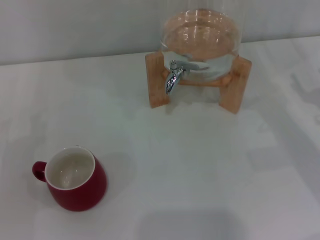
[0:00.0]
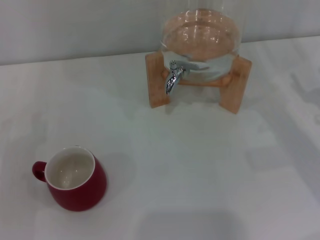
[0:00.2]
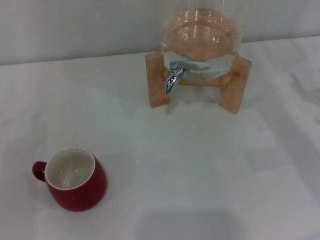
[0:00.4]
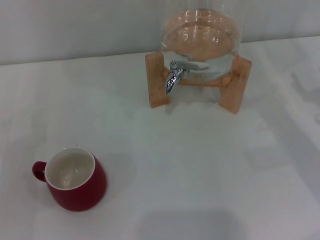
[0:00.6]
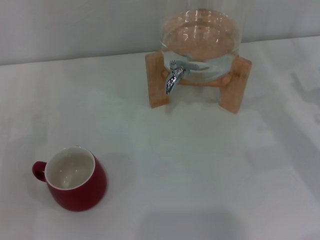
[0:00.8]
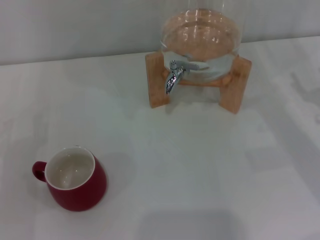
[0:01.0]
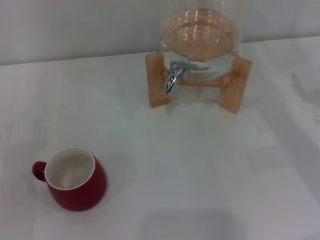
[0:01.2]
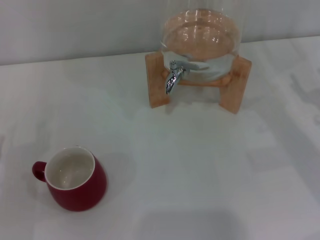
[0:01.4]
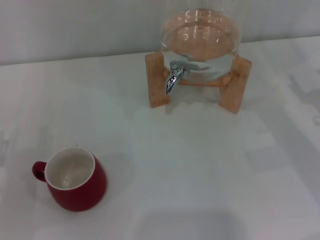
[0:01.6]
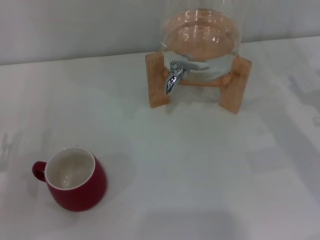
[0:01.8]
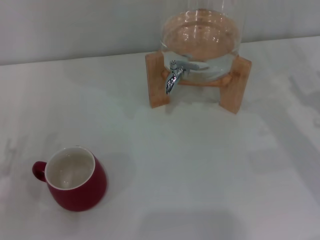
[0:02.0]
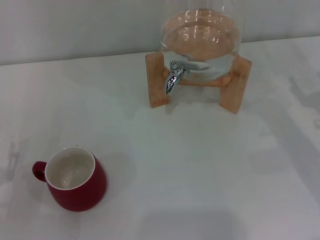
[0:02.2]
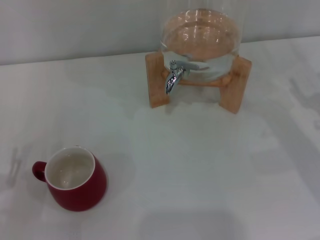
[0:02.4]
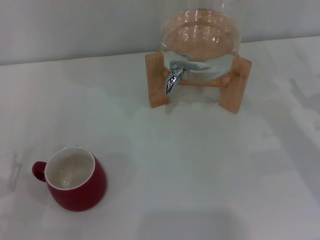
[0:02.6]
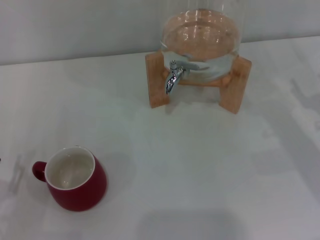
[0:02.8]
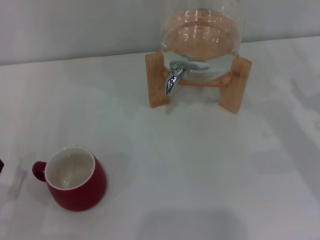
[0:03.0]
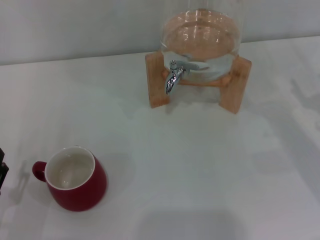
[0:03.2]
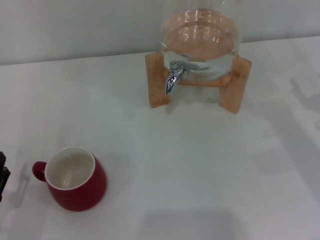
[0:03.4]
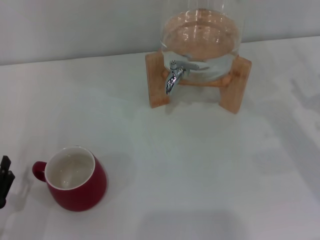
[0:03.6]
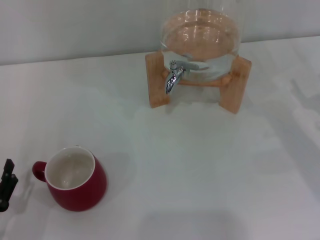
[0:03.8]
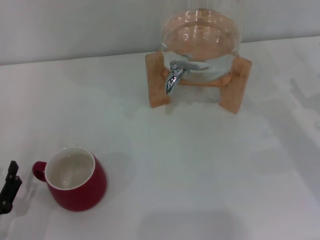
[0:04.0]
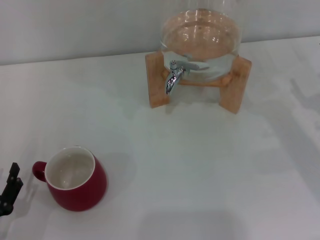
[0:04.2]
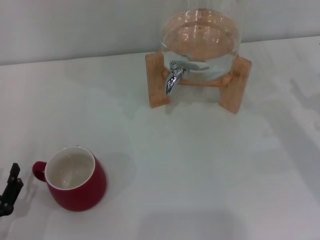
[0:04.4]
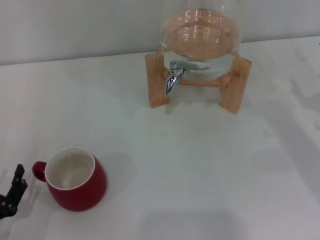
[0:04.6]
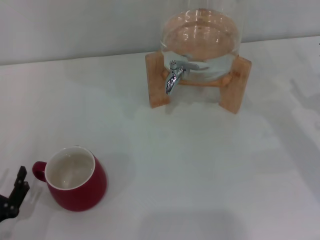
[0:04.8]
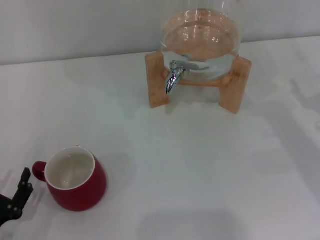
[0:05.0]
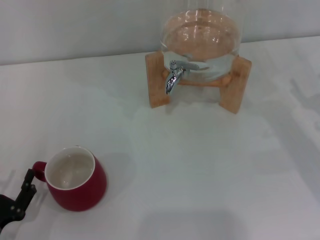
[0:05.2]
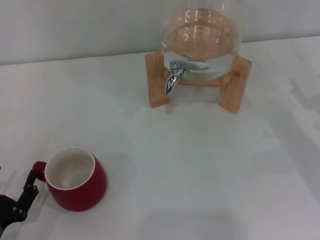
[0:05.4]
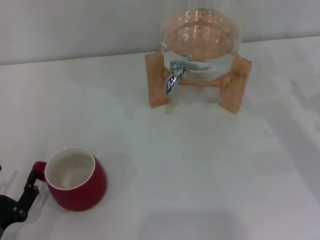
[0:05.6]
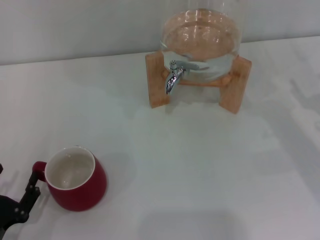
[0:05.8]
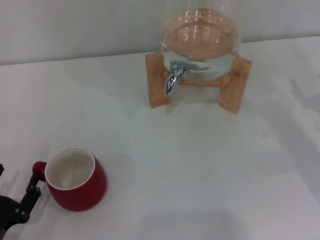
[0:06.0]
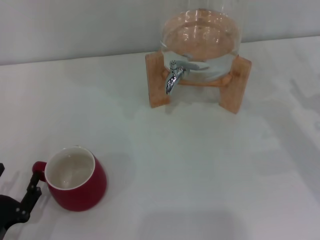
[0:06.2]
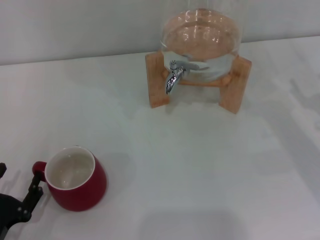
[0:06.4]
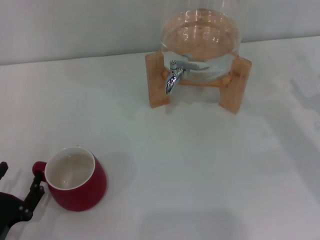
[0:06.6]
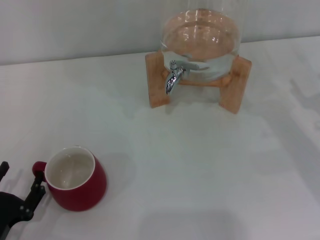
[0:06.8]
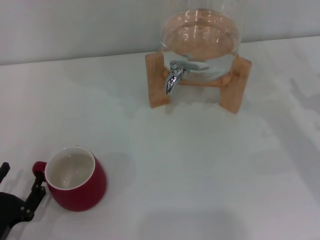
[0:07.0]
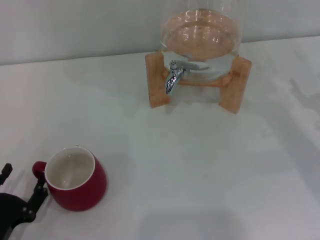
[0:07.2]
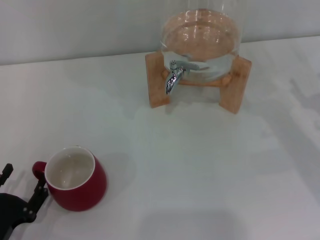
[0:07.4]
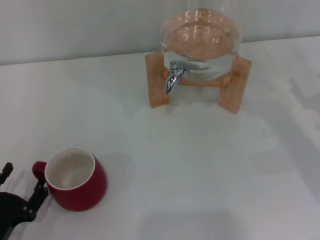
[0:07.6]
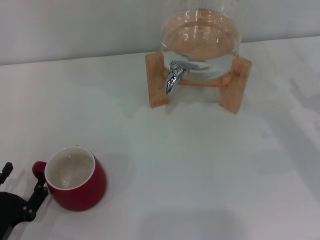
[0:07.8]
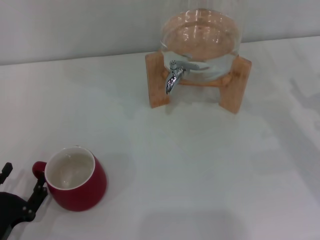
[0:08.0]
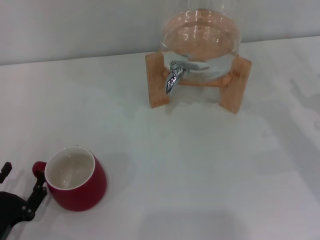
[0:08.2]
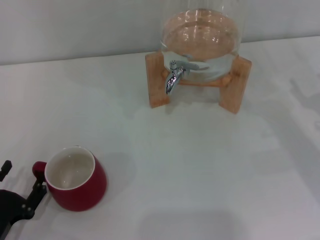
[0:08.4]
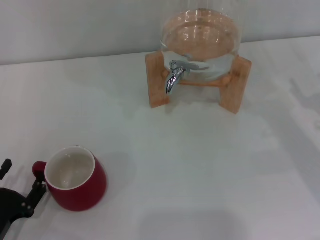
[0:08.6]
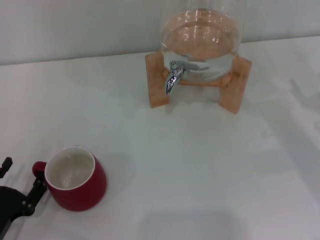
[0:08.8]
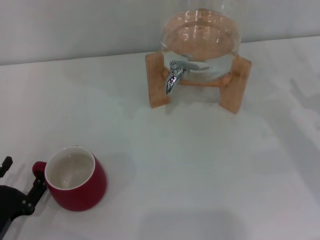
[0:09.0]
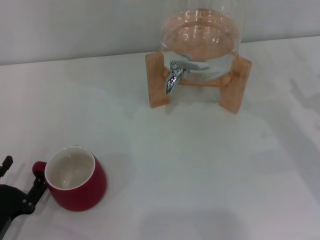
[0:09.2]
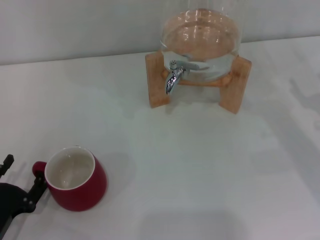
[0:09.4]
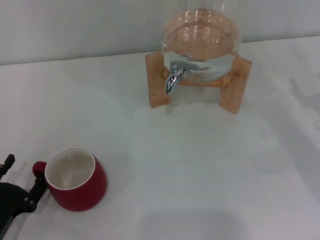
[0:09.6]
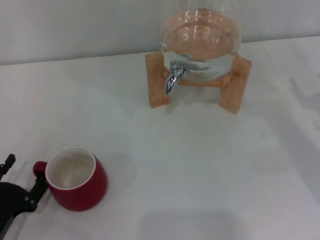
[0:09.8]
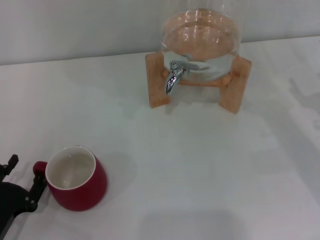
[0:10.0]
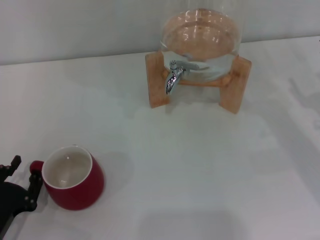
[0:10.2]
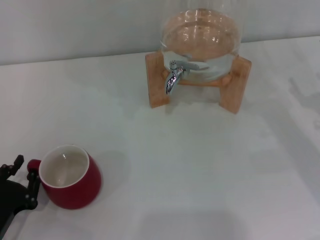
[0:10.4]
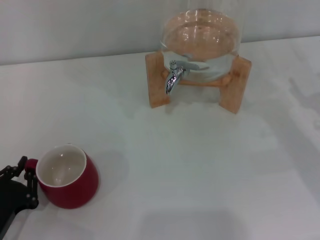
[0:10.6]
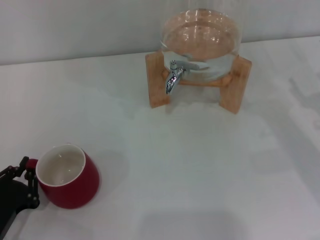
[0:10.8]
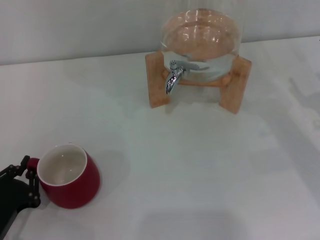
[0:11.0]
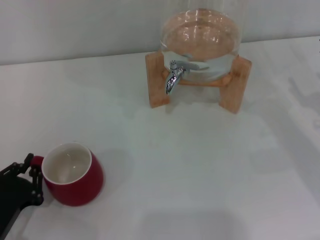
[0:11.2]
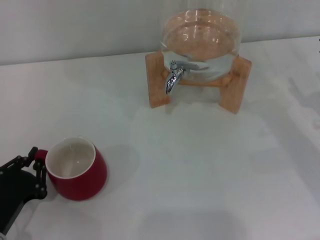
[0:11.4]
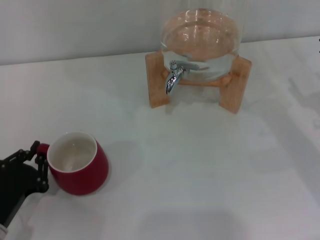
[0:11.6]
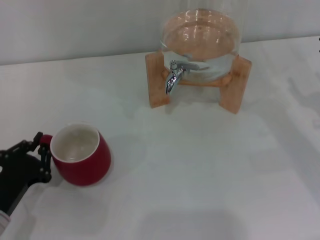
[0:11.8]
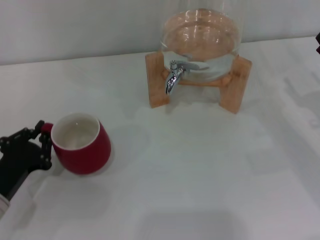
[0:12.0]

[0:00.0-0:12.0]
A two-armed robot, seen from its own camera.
Task of the whole recording: the left gripper pick up the red cup and place it horizontally under the faucet, the right gripper turn on the faucet to fill the cup, and then turn off the faucet.
0:03.0 to 0:06.0: There are only small adjustments of the grippers.
0:06.0 to 0:07.6: Both grippers stay put.
0:07.6 to 0:09.0: Both grippers stay about where they are.
0:09.0 to 0:10.4: The left gripper closes its fingers.
0:10.4 to 0:12.0: The left gripper heads forward, covering roughly 5 cm, and closes up.

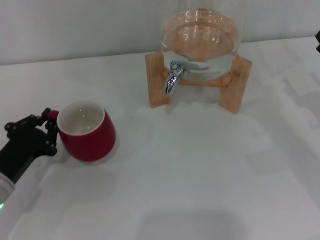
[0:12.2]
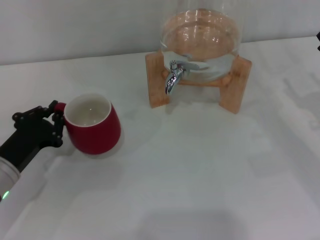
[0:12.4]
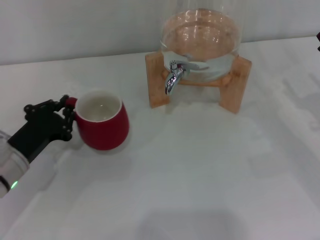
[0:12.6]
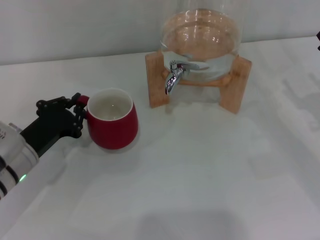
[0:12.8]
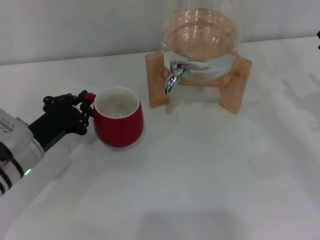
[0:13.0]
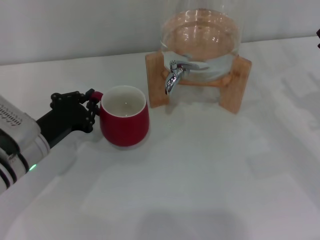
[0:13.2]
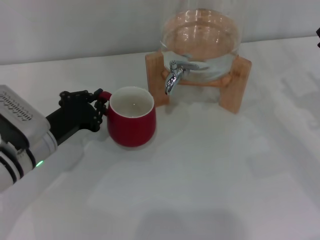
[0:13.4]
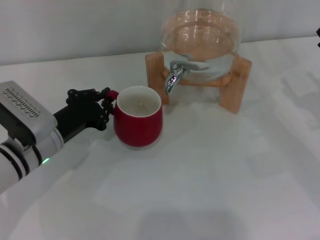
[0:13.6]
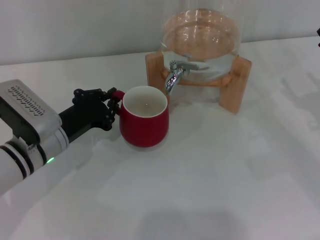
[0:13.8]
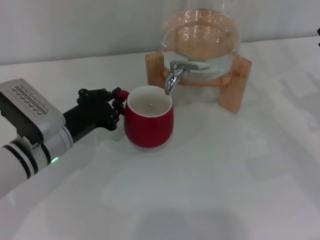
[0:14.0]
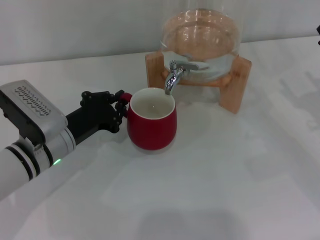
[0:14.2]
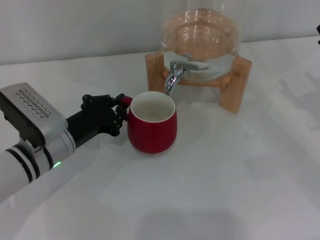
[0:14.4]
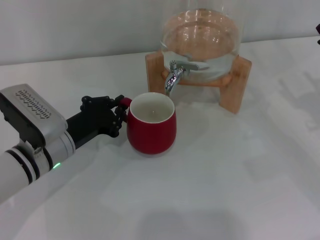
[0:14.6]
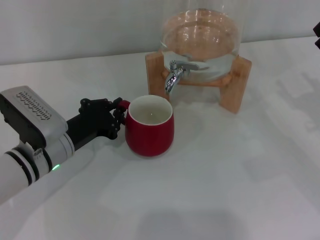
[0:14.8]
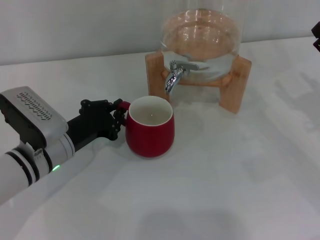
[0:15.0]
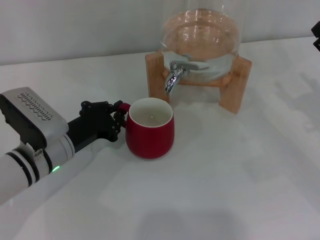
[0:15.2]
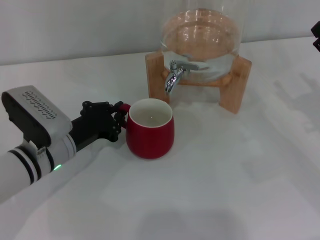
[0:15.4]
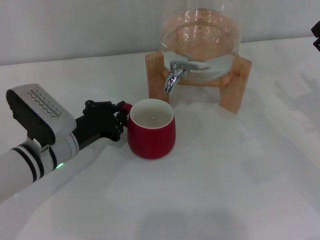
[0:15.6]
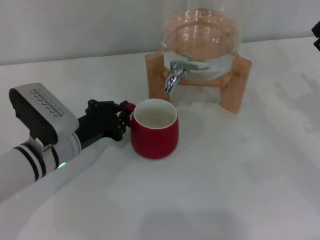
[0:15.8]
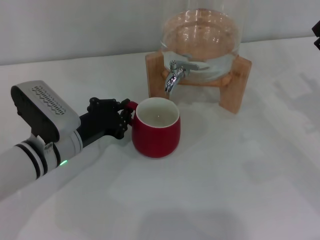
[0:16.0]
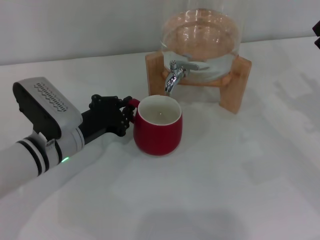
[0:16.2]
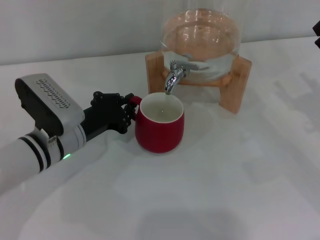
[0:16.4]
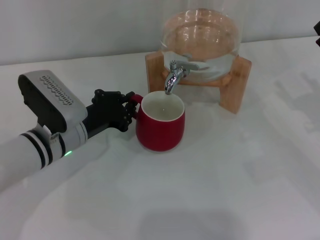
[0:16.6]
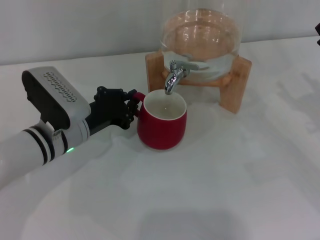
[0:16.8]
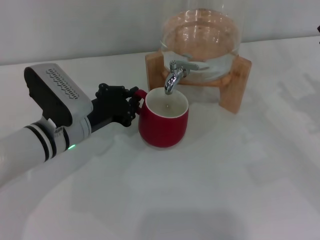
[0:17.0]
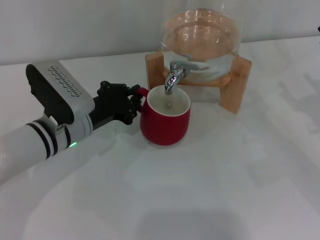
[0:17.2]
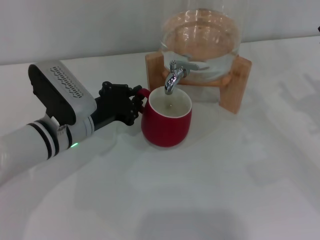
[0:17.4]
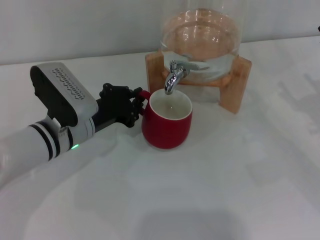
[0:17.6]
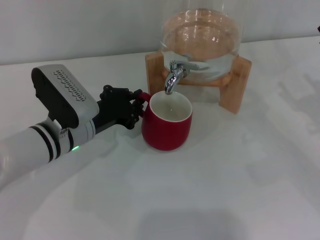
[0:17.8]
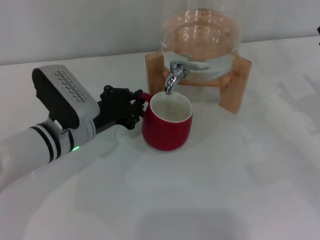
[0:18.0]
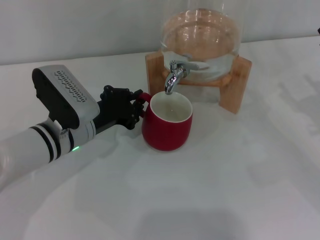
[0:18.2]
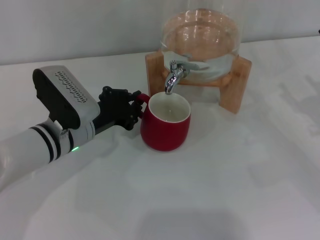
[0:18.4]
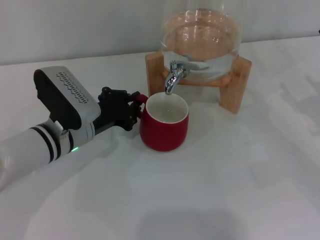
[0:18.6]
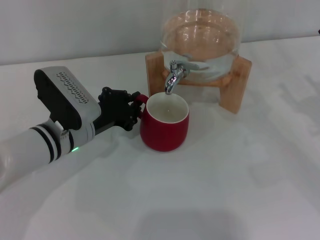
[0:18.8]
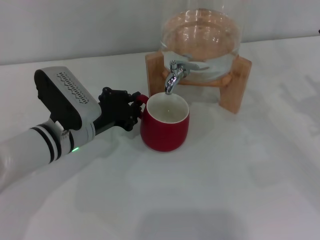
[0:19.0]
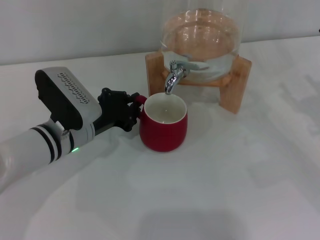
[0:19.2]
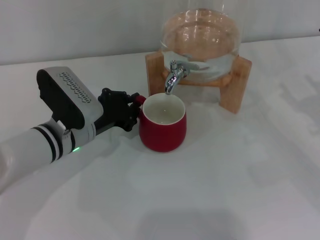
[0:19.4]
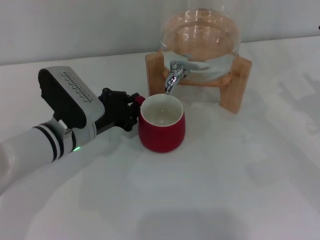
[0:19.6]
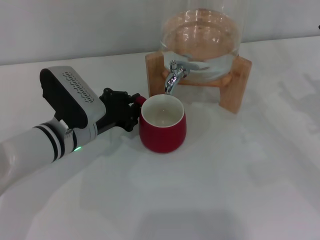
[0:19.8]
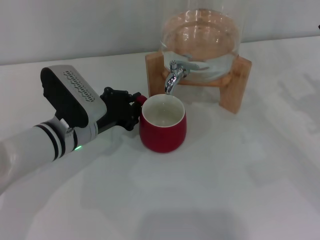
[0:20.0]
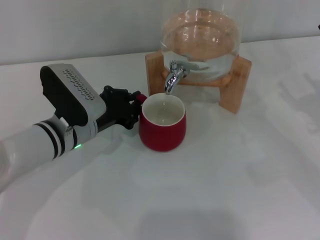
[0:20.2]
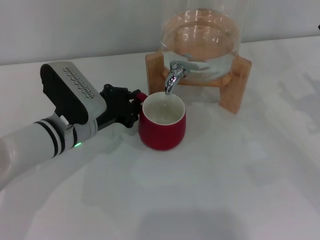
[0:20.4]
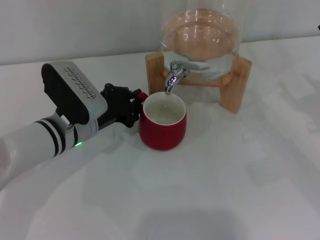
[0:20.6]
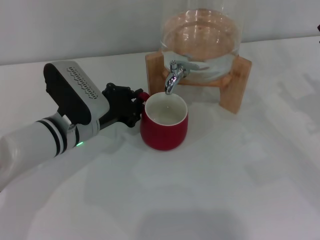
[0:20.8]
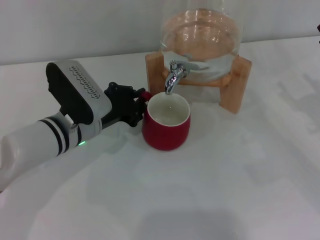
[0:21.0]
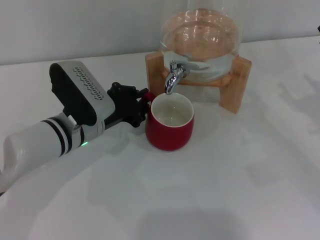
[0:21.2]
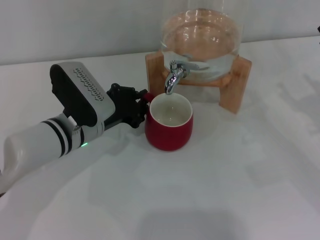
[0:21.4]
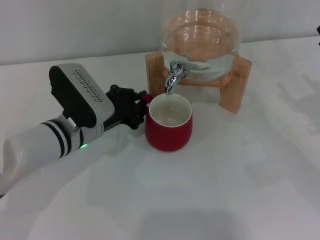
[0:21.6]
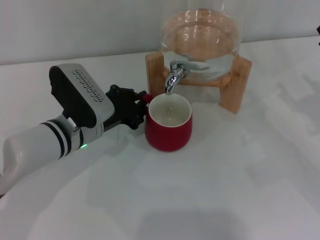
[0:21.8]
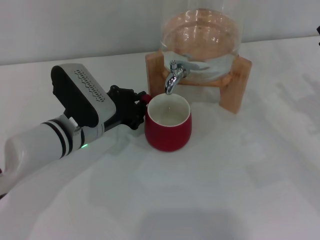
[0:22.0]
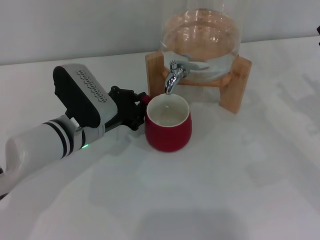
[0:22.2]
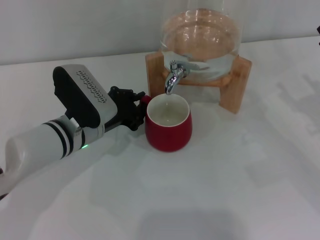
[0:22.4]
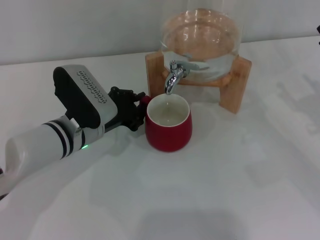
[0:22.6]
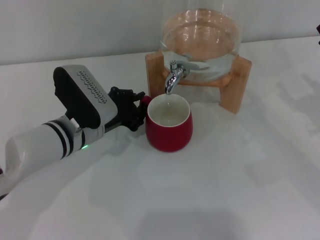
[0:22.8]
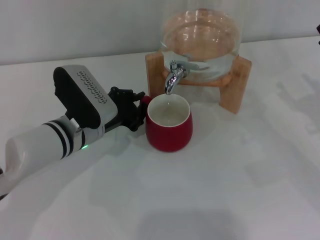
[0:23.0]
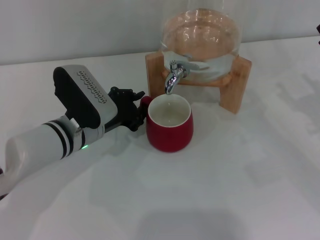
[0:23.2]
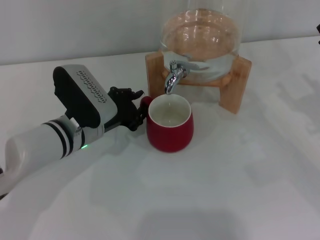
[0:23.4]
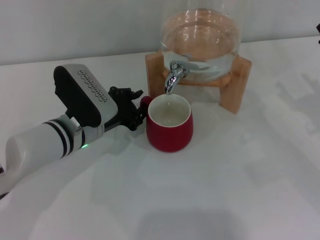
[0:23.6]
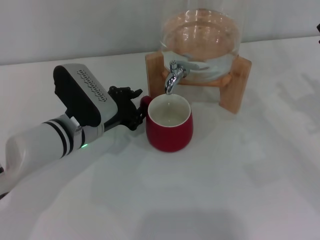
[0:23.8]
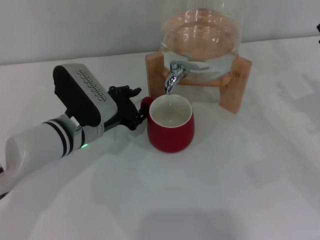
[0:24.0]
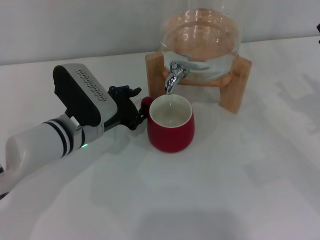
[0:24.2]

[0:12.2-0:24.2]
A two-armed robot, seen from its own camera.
Task of the whole recording: the left gripper pick up the red cup and place it horizontally under the faucet, the right gripper turn on the faucet to fill the cup, and then turn off the faucet.
0:12.2 to 0:13.8: The left gripper is displaced to the right and forward by some 10 cm.
0:13.8 to 0:18.2: The grippers move only a little.
0:18.2 to 0:19.8: Both grippers stay about where they are.
0:19.8 to 0:22.6: Both grippers stay about where they are.
0:22.6 to 0:24.2: The left gripper opens its fingers.
